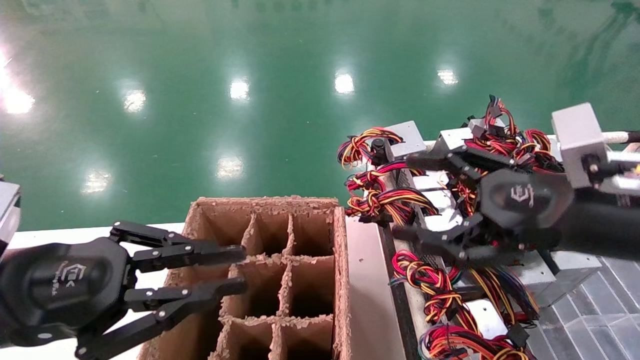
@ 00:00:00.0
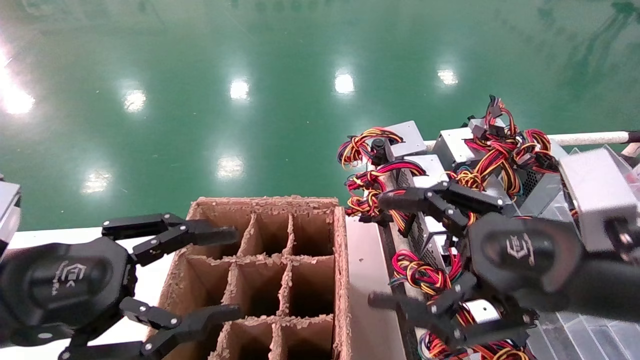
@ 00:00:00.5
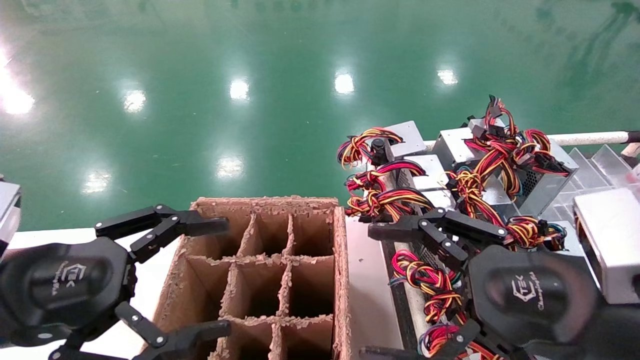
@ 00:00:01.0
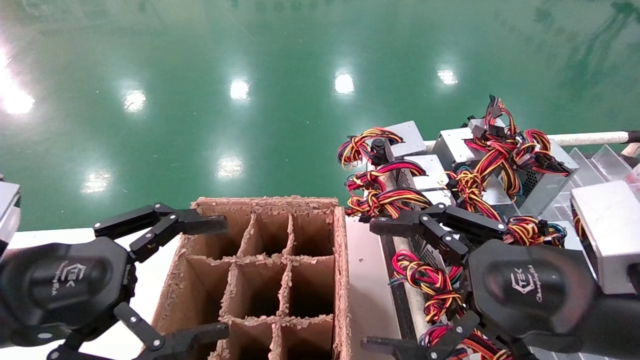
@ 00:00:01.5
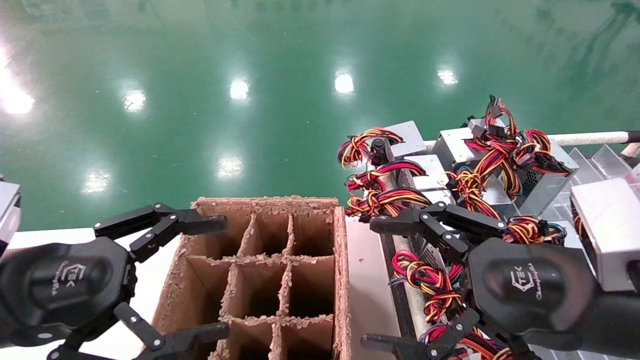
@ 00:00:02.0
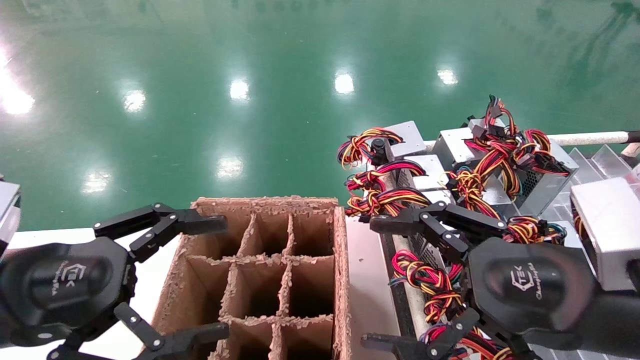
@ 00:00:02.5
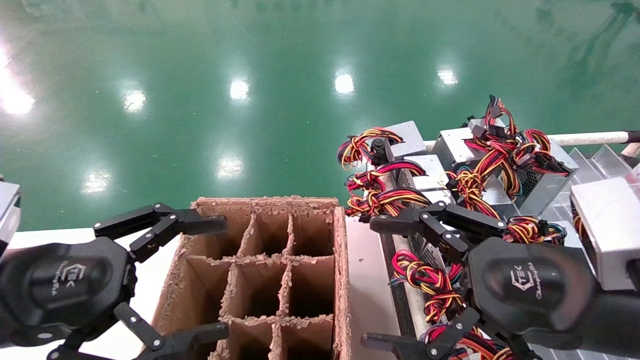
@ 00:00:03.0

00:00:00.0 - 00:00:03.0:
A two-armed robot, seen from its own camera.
00:00:00.0 - 00:00:01.5: The left gripper opens its fingers. The right gripper moves backward, approximately 5 cm.
00:00:01.5 - 00:00:03.0: Both grippers stay about where they are.

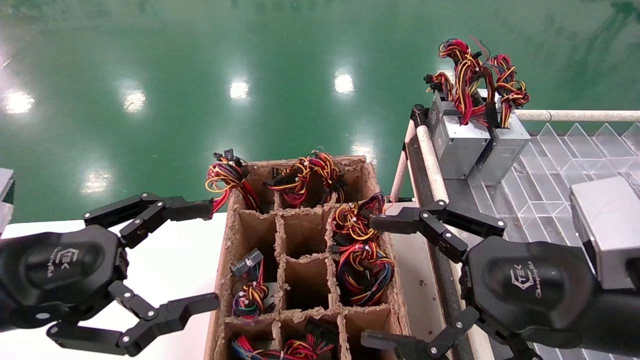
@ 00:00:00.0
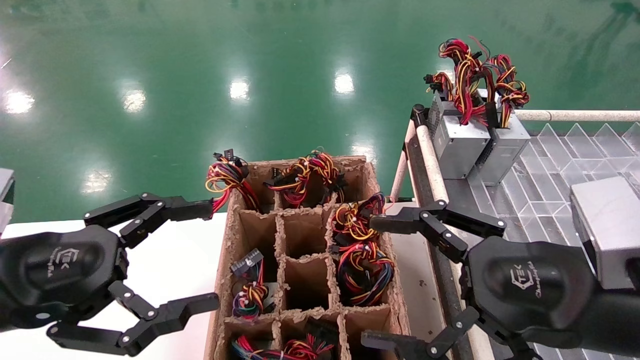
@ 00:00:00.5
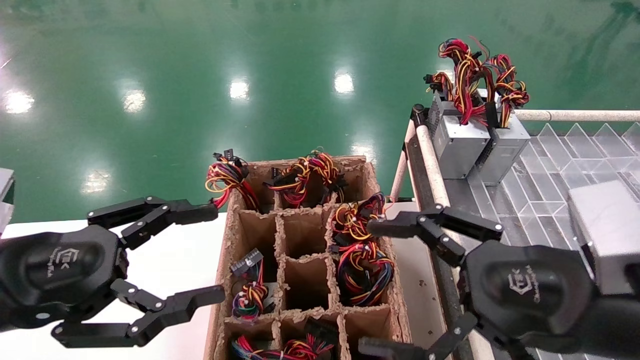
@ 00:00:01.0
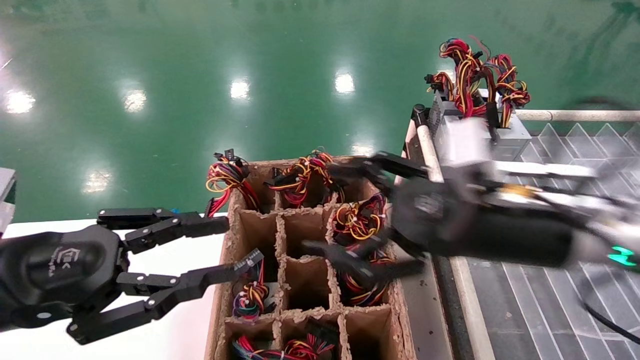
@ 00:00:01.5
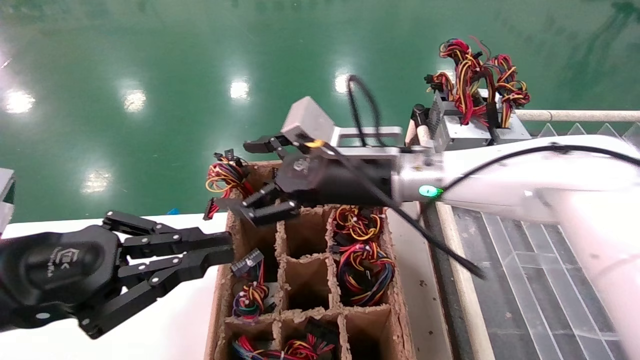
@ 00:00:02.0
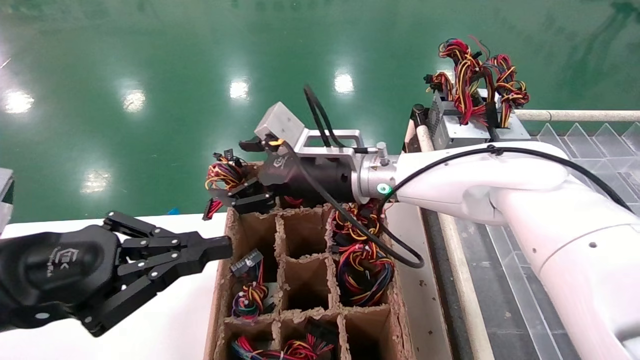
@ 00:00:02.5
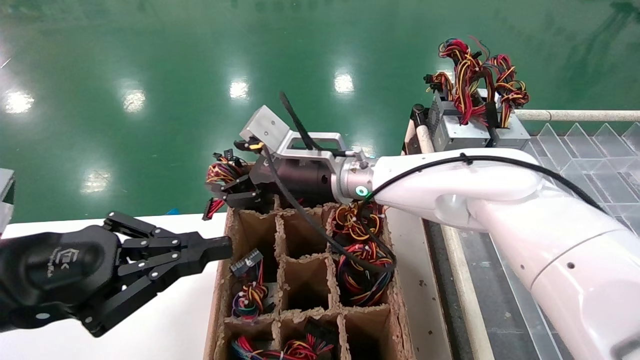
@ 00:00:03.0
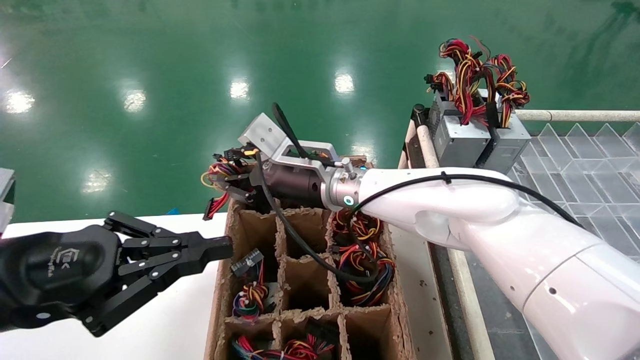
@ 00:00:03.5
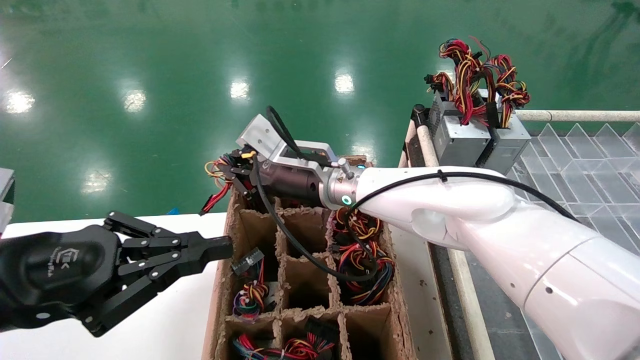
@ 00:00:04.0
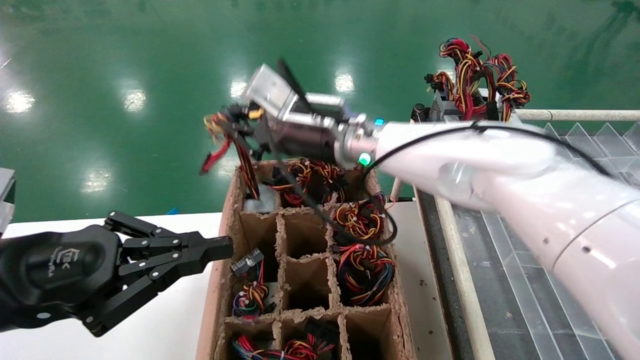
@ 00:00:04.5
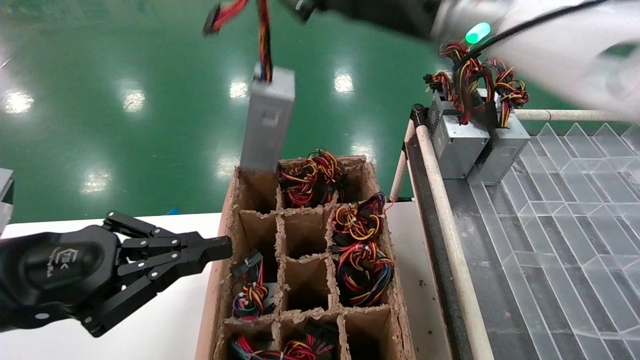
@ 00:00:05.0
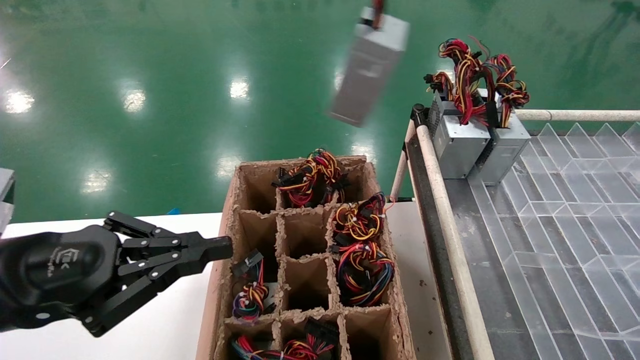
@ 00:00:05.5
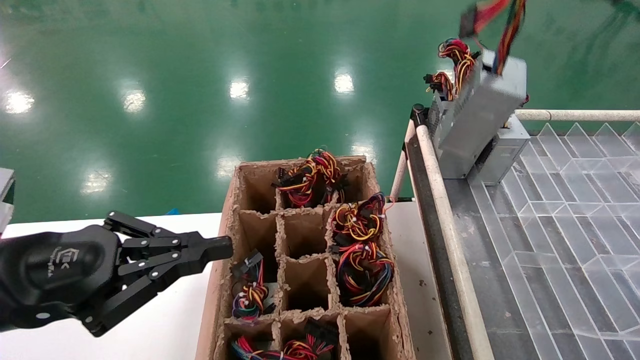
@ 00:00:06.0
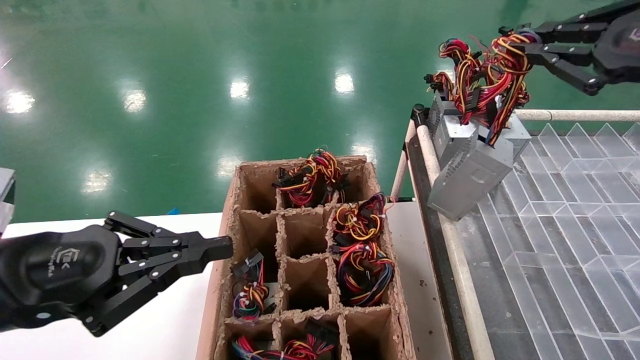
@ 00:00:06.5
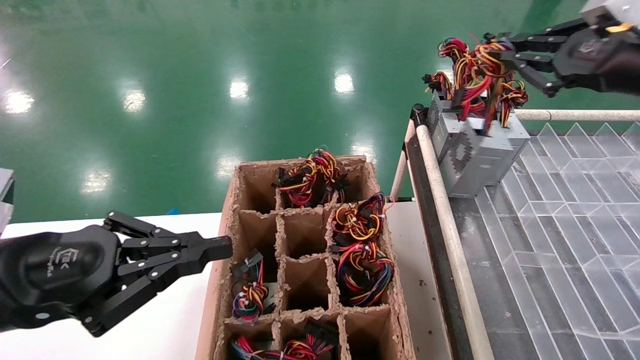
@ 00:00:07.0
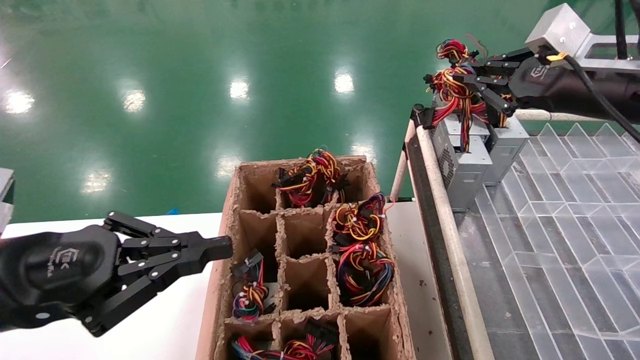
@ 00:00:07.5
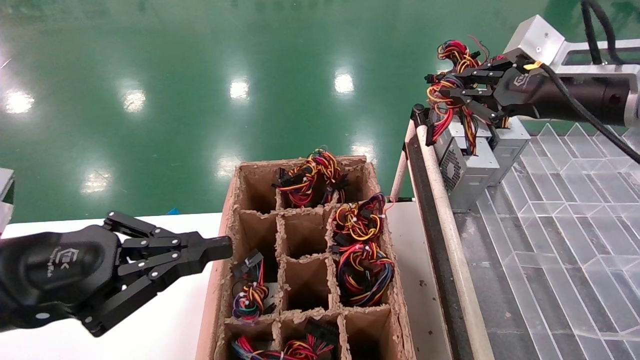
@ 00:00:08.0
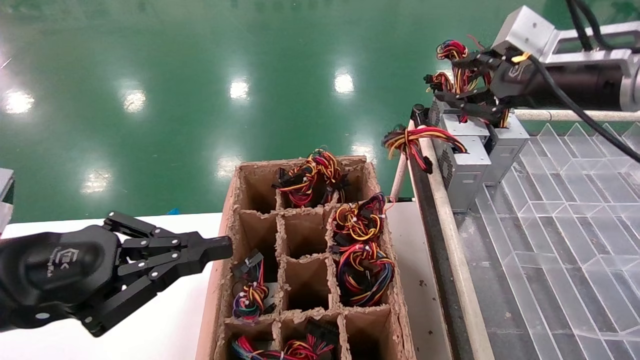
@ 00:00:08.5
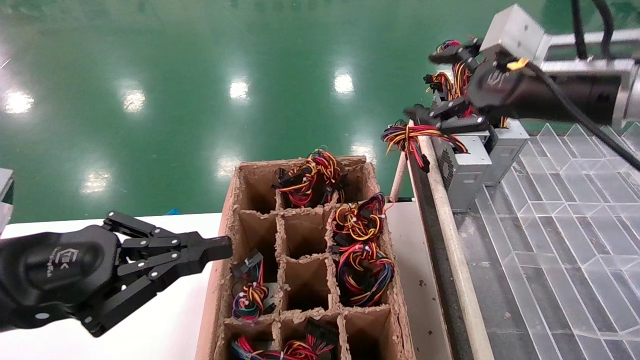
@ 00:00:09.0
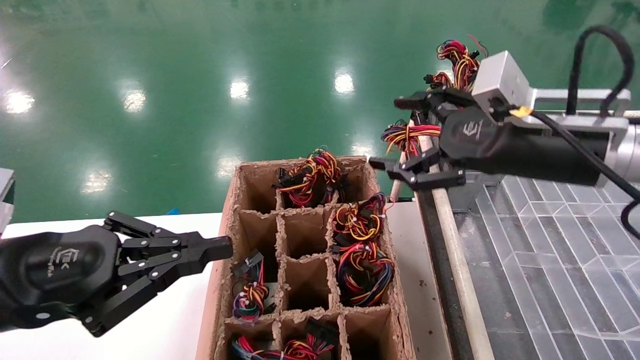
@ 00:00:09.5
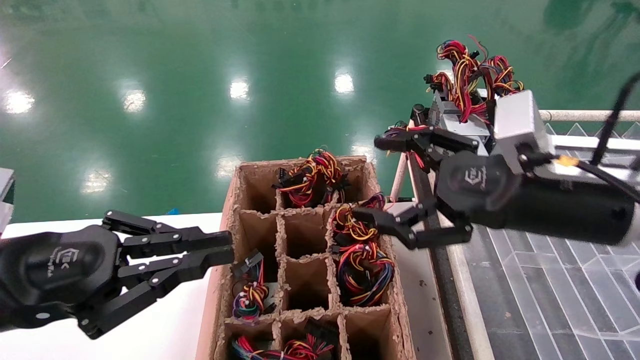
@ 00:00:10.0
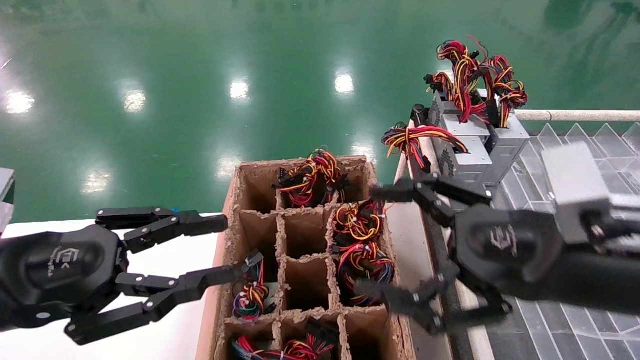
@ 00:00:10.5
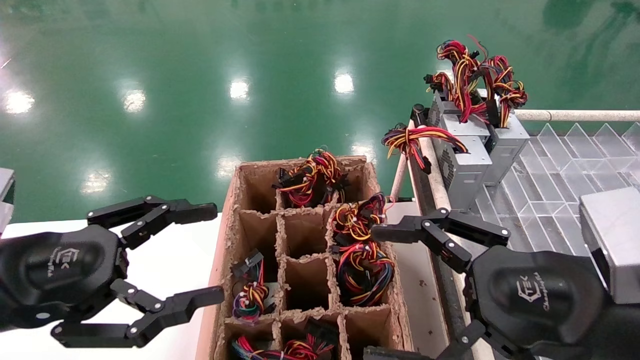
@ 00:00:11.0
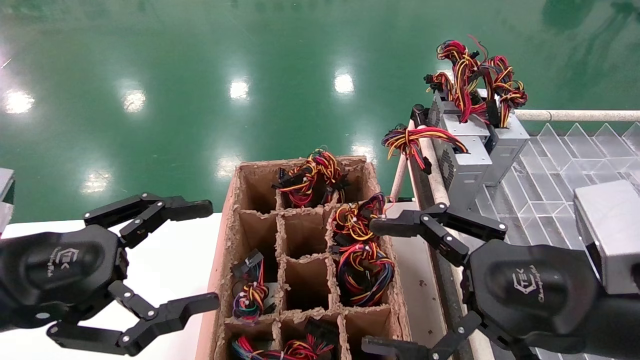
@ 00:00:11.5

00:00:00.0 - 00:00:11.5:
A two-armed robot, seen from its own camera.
Step, 00:00:01.5 - 00:00:04.0: Grab the main unit power supply from the containment box.
Step, 00:00:04.5 - 00:00:09.0: Place the main unit power supply in the designated area.
00:00:00.0 - 00:00:02.0: The left gripper closes up; the right gripper shifts about 25 cm forward and to the left.
00:00:02.0 - 00:00:04.0: The right gripper moves to the left and forward, roughly 10 cm, and closes up.
00:00:04.0 - 00:00:06.0: The right gripper is displaced to the right, upward and backward by roughly 50 cm.
00:00:06.0 - 00:00:07.5: The right gripper travels forward and downward by approximately 15 cm.
00:00:07.5 - 00:00:09.5: The right gripper is displaced to the left and downward by roughly 10 cm, and opens up.
00:00:09.5 - 00:00:11.5: The right gripper heads backward and downward, covering some 15 cm. The left gripper opens up.

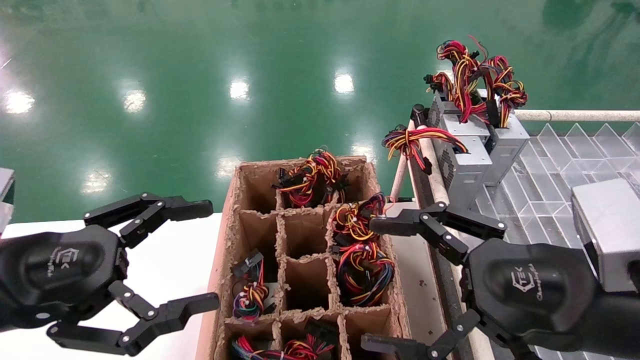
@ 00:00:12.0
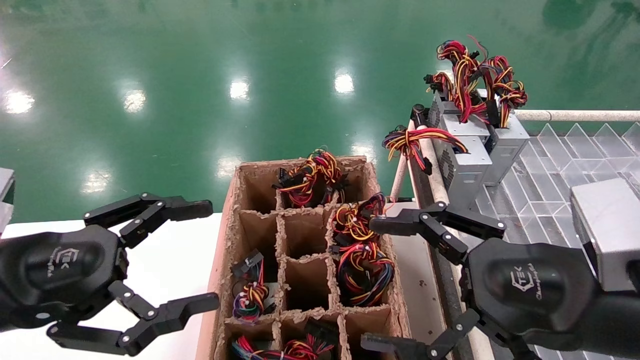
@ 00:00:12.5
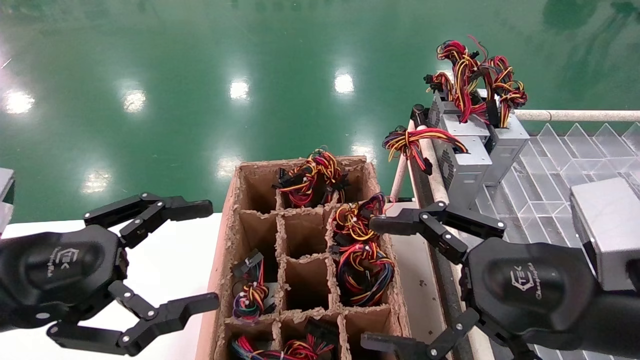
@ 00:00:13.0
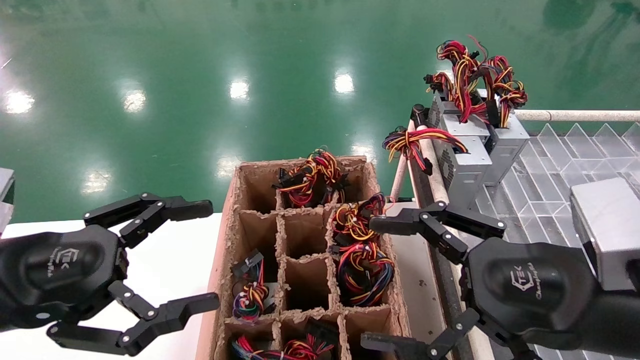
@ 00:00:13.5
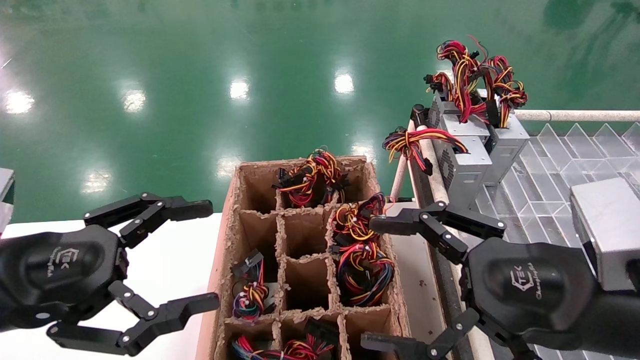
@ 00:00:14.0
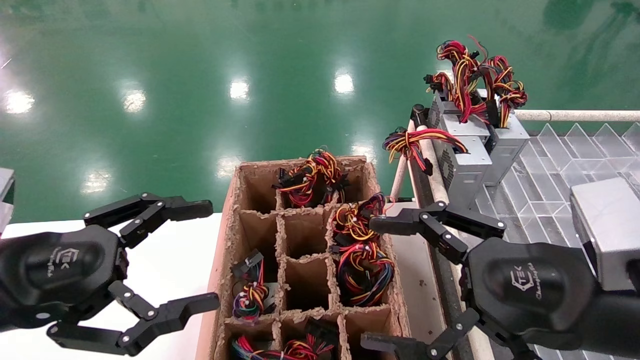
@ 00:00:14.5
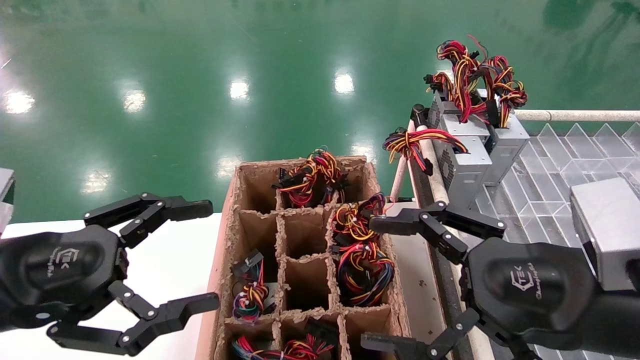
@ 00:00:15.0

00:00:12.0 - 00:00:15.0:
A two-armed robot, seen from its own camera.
00:00:12.0 - 00:00:15.0: Both grippers stay about where they are.
